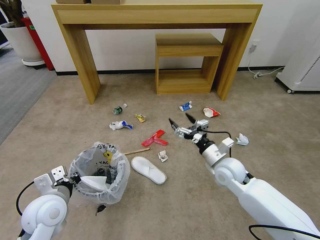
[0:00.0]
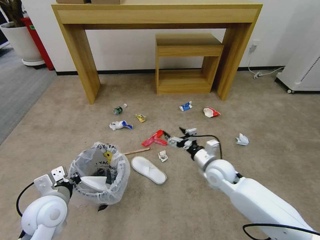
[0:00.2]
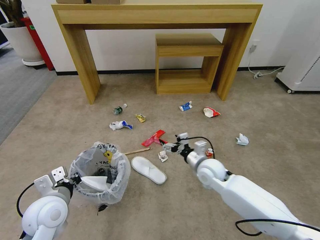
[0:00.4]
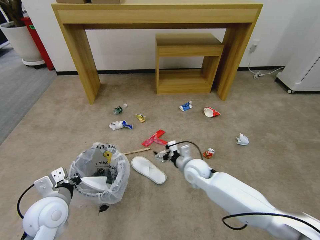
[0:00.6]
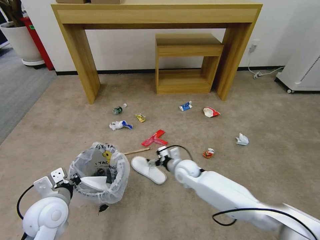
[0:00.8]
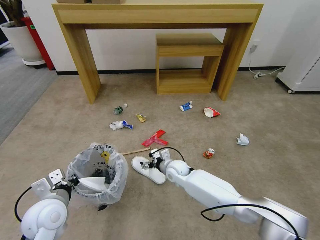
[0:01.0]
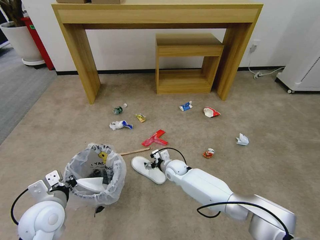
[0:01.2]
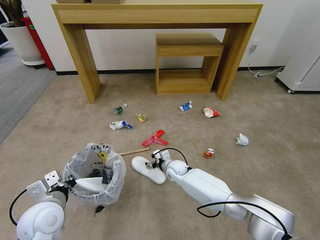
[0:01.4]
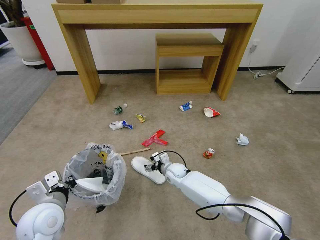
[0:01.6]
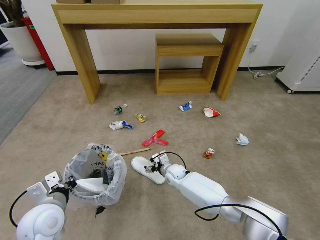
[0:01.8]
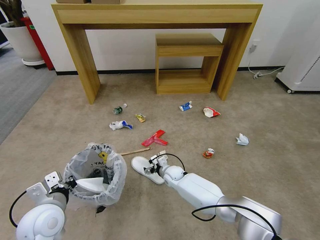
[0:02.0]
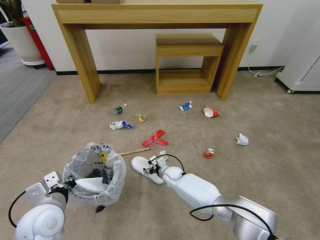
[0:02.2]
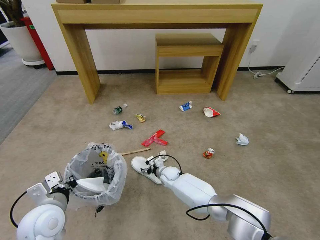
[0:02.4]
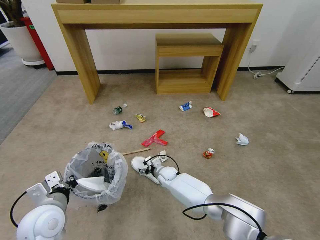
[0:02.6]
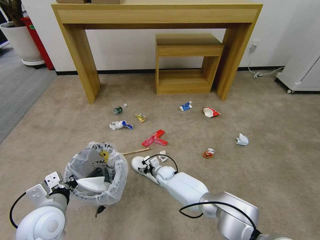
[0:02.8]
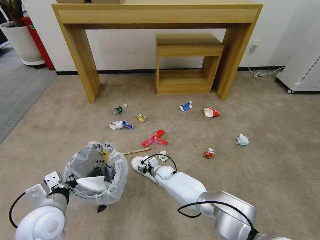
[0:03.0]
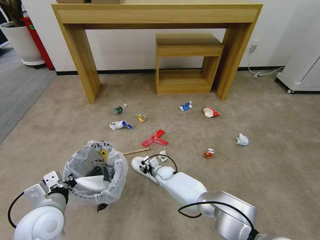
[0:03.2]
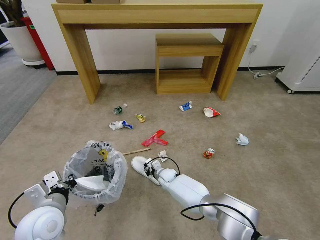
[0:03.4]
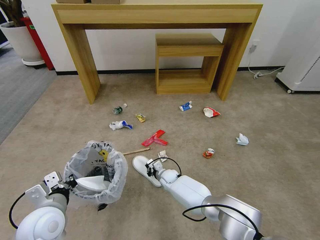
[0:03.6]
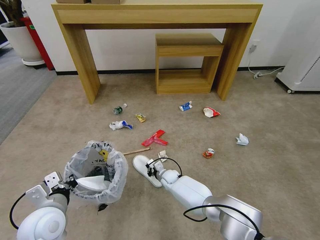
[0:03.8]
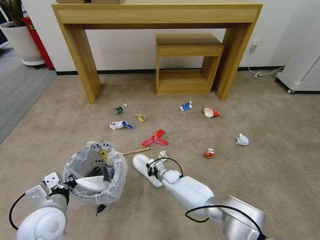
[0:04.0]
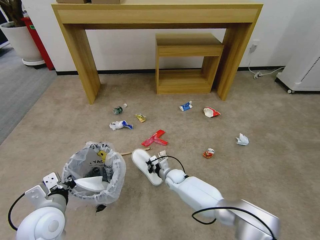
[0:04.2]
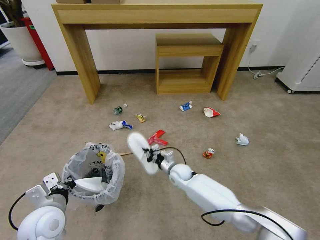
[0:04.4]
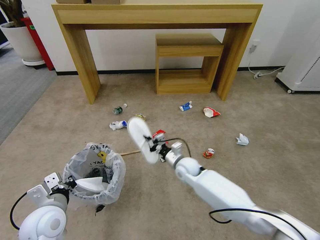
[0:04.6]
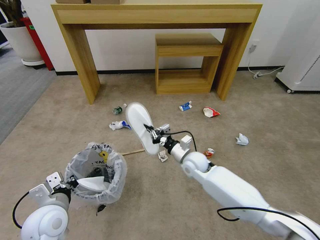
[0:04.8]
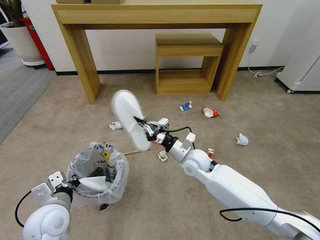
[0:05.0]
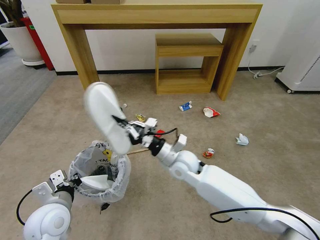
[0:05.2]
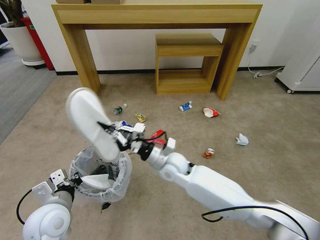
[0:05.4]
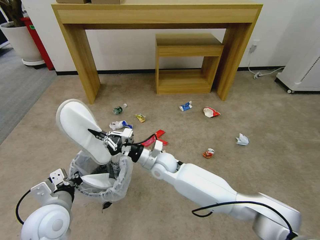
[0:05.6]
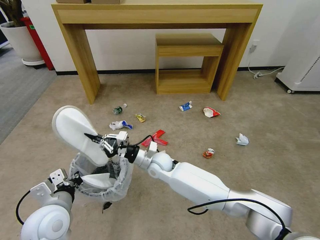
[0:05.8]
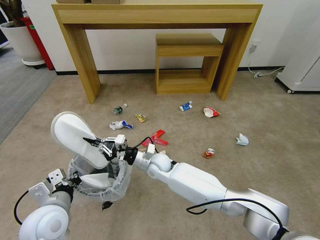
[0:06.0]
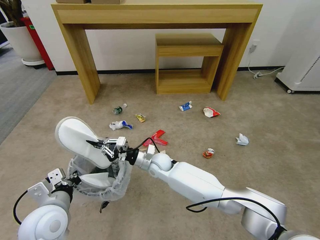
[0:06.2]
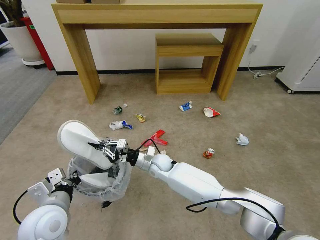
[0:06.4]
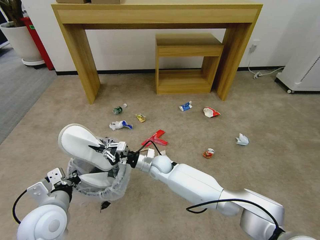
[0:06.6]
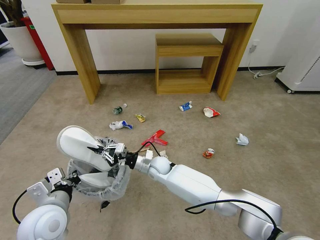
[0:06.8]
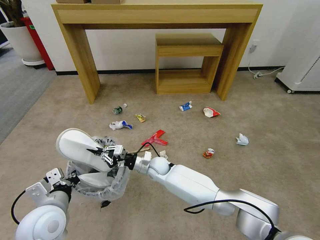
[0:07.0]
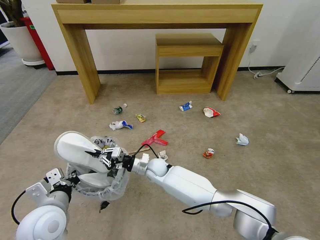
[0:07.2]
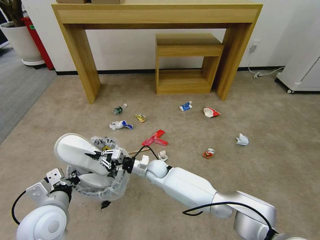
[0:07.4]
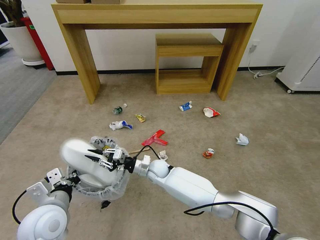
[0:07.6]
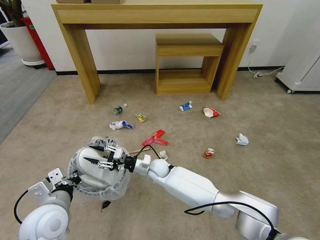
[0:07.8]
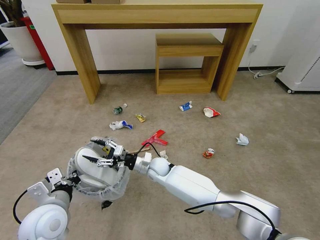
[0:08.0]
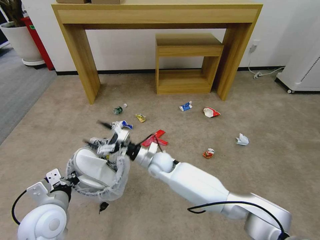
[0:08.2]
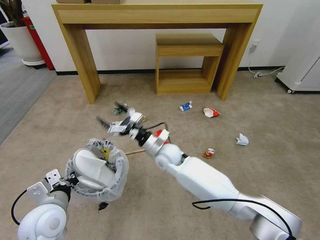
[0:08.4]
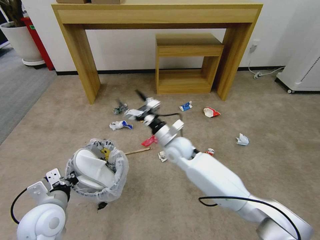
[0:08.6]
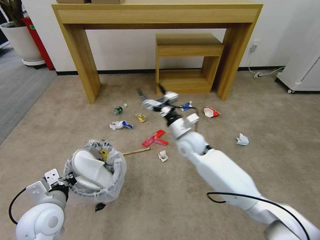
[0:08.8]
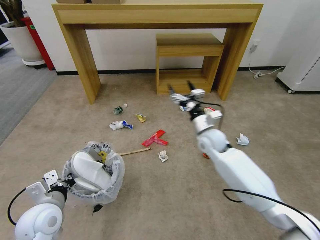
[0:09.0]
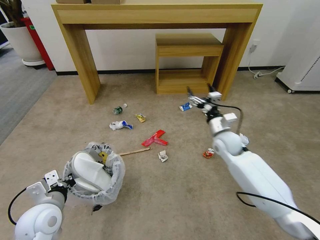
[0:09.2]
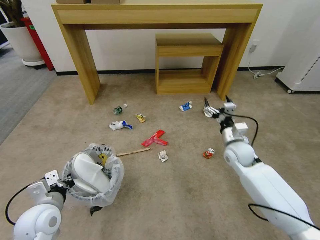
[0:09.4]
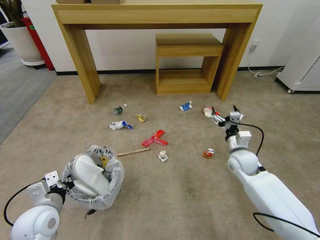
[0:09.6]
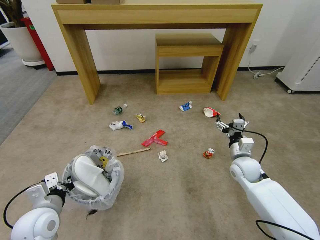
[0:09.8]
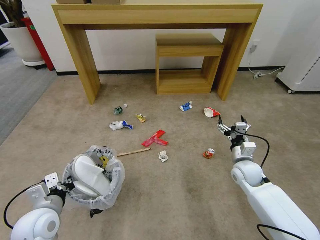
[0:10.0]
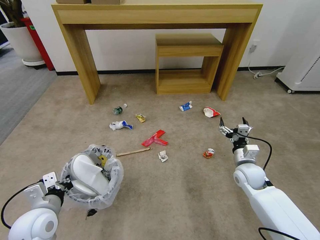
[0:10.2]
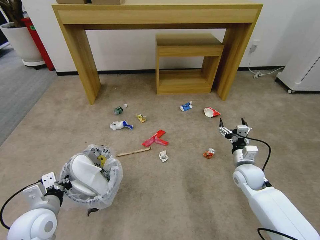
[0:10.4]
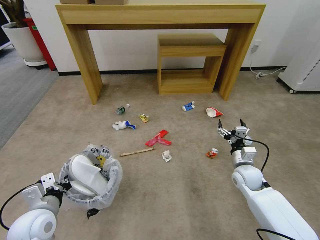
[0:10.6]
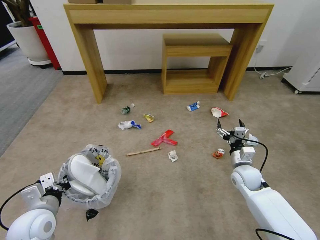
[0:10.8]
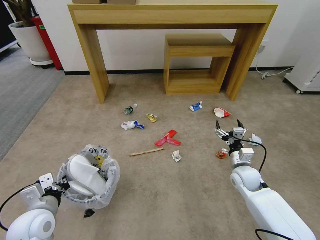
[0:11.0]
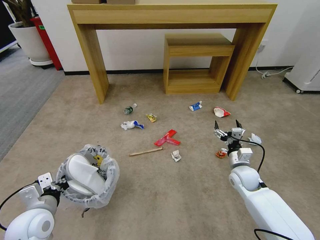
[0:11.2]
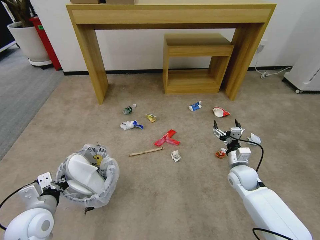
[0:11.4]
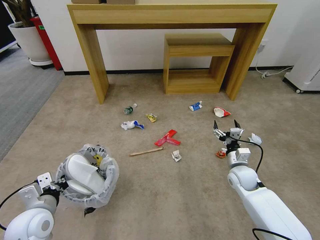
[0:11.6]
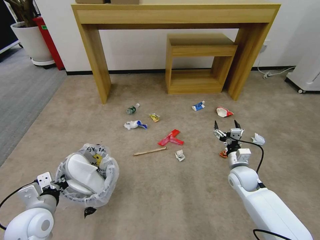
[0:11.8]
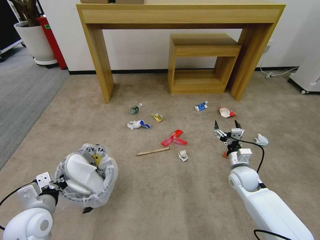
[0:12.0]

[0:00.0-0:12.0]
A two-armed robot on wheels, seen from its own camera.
Task of the whole recording: Pick up the trash bin and place the garbage on the floor into it.
0:00.0 to 0:01.6: The right gripper shifts roughly 25 cm downward, to the left and forward.
0:01.6 to 0:03.0: The right gripper changes place by some 5 cm.
0:03.0 to 0:04.4: The right gripper heads to the right and upward, covering approximately 10 cm, and closes up.
0:04.4 to 0:06.0: The right gripper goes about 15 cm upward and to the left.
0:06.0 to 0:07.6: The right gripper heads downward, covering approximately 5 cm.
0:07.6 to 0:09.0: The right gripper moves to the right and upward, about 25 cm, and opens its fingers.
0:09.0 to 0:10.4: The right gripper is displaced to the right, backward and downward by roughly 20 cm.

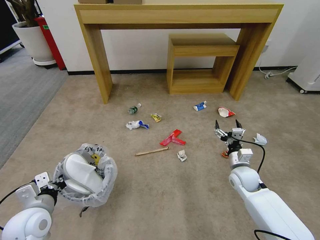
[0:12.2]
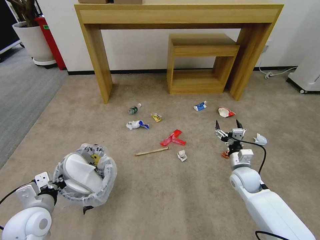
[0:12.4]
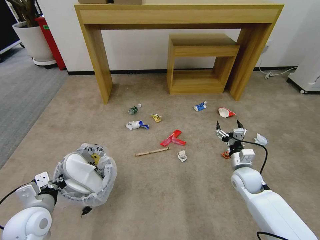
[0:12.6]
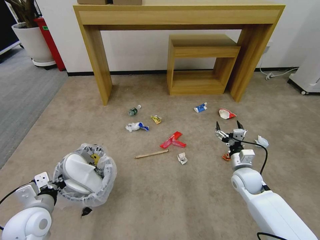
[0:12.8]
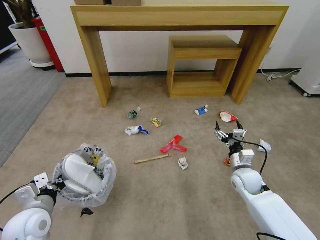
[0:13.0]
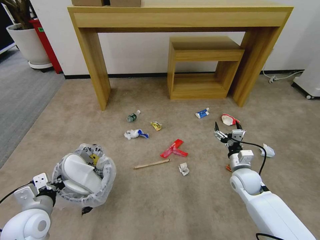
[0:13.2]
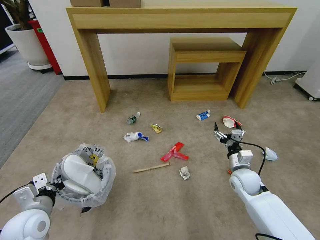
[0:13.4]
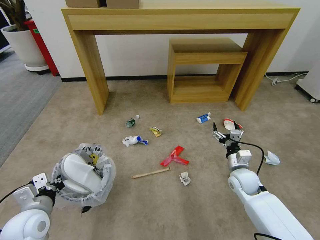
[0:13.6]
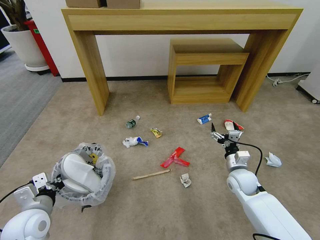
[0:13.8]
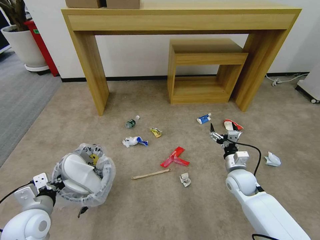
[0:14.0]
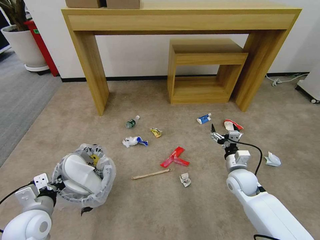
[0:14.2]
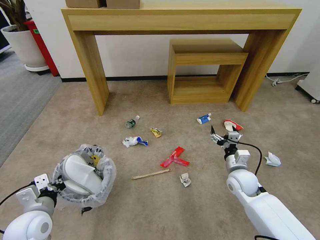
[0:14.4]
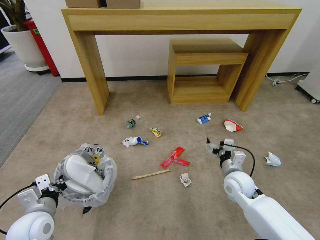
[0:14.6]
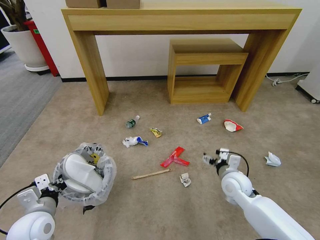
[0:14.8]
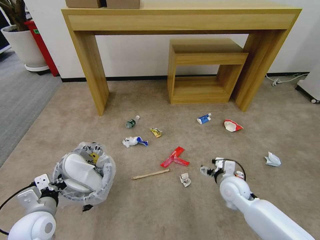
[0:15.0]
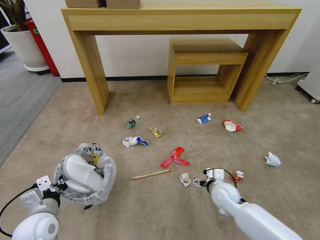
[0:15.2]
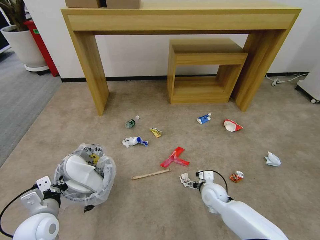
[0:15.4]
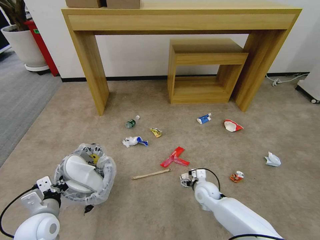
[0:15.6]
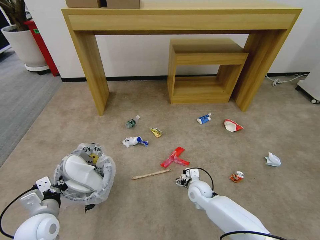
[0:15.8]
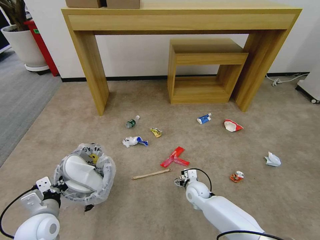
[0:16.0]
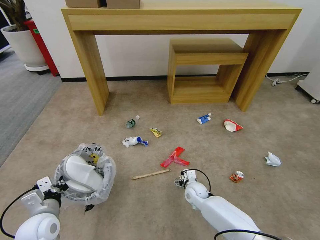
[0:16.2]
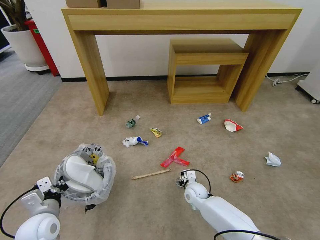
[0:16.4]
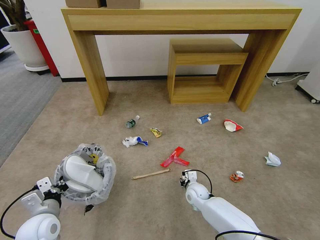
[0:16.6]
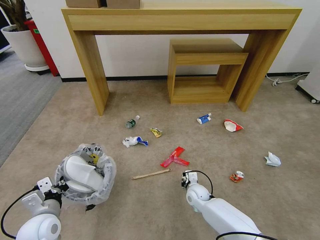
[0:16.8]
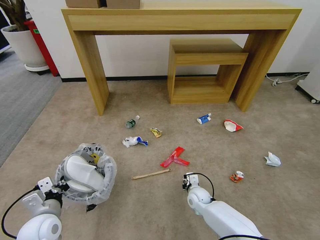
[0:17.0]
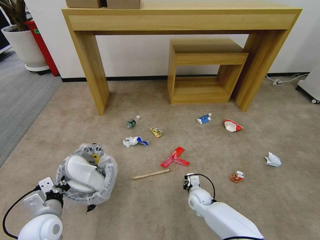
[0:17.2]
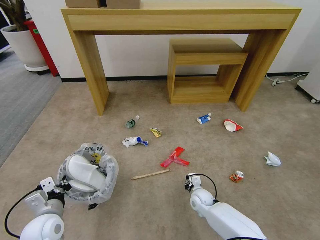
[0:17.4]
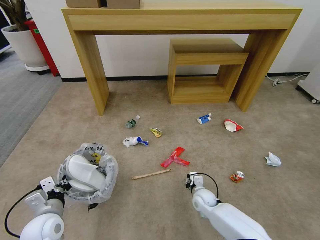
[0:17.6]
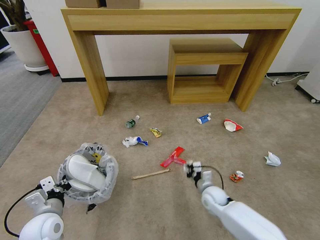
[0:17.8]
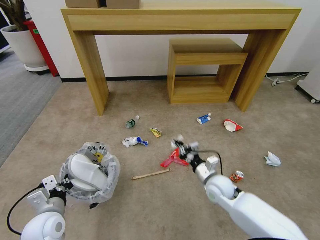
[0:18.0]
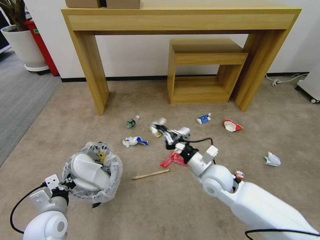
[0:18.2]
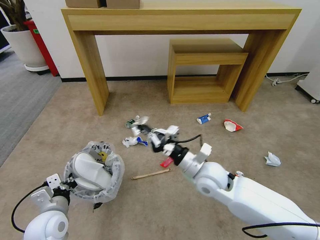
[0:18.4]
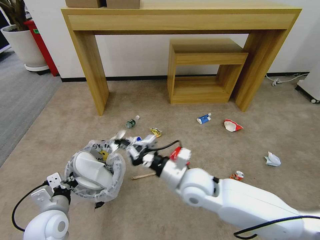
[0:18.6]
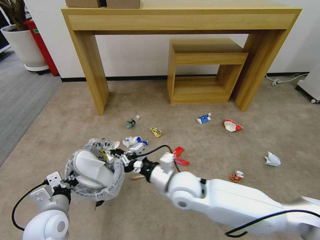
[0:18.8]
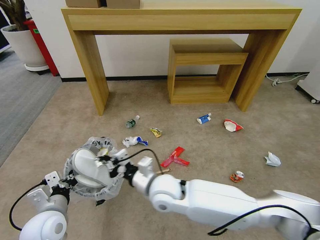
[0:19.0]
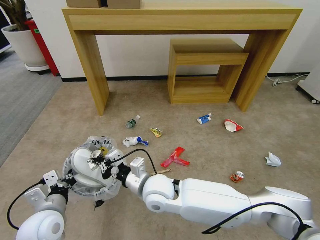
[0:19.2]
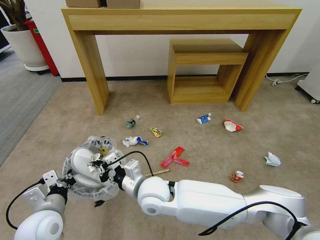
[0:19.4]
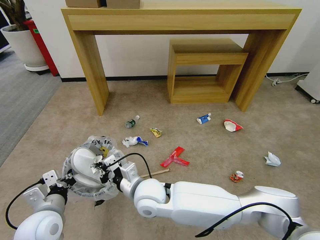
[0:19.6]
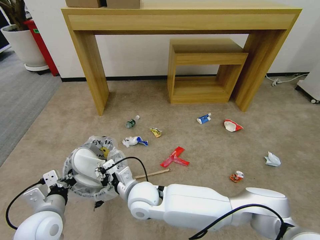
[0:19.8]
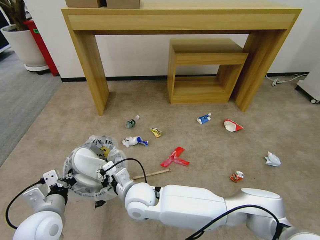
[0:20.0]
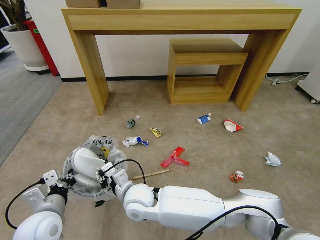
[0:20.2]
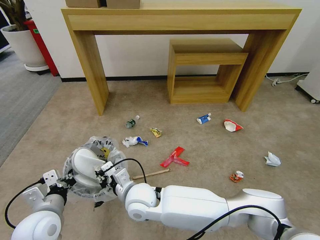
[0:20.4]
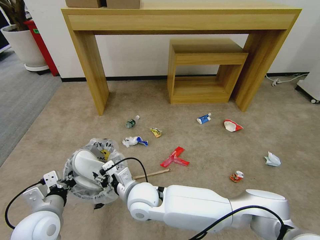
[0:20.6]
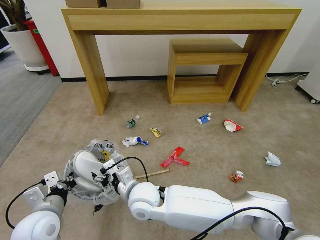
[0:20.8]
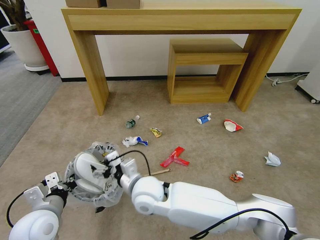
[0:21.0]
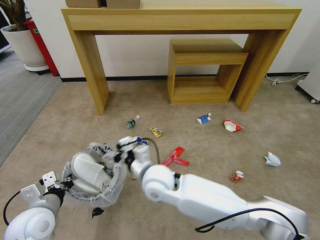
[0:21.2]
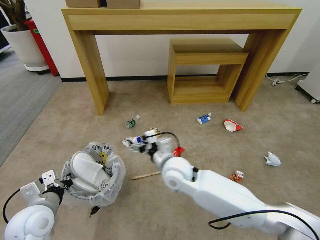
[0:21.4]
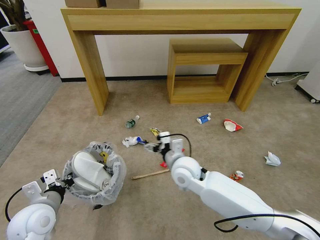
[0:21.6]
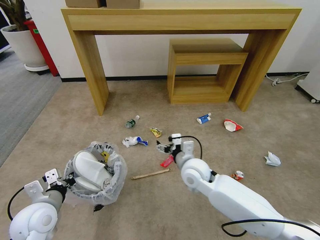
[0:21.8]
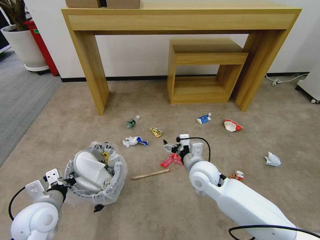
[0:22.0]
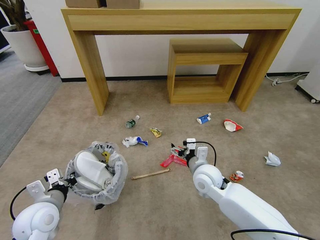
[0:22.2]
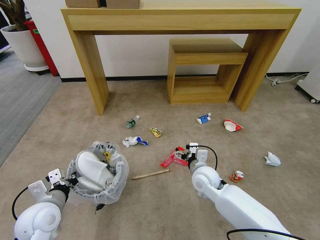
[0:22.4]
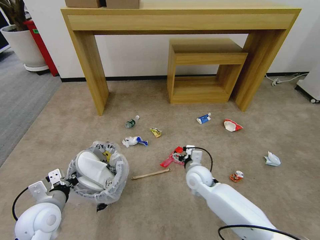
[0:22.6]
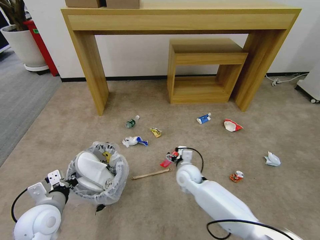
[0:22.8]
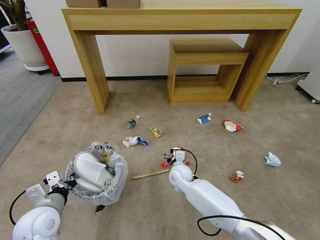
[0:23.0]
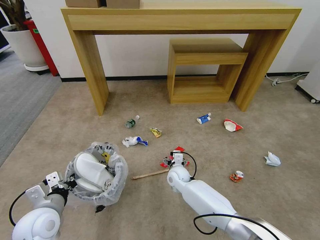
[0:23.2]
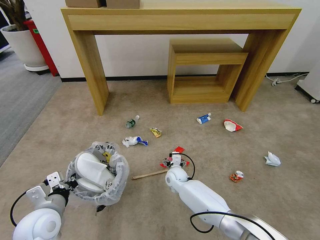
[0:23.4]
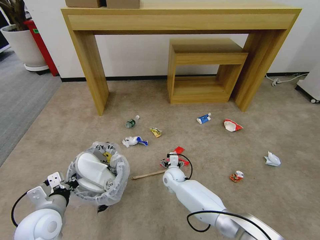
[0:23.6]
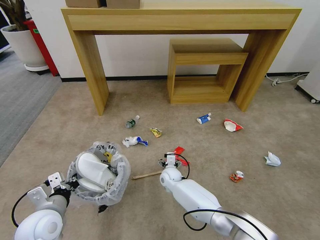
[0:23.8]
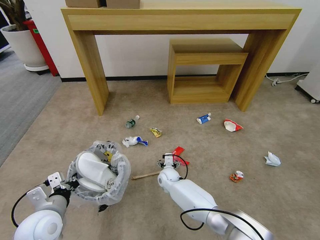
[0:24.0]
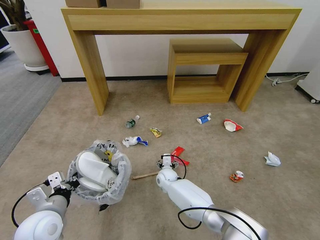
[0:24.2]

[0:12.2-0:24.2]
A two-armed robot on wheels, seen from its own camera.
Task of the whole recording: Pick up the trash bin and place the garbage on the floor into it.
0:13.8 to 0:15.2: The right gripper heads to the left, covering approximately 5 cm.
0:15.2 to 0:16.6: The right gripper goes some 15 cm downward and to the left, and closes.
0:16.6 to 0:18.2: The right gripper moves upward, about 20 cm, and closes its fingers.
0:18.2 to 0:19.8: The right gripper moves to the left, about 25 cm.
0:19.8 to 0:21.2: The right gripper ends up about 5 cm from where it was, and opens up.
0:21.2 to 0:22.6: The right gripper heads to the right, downward and forward, covering approximately 20 cm.
0:22.6 to 0:24.2: The right gripper travels downward, to the left and forward by about 20 cm.
